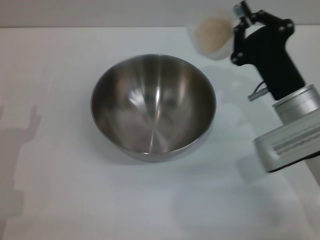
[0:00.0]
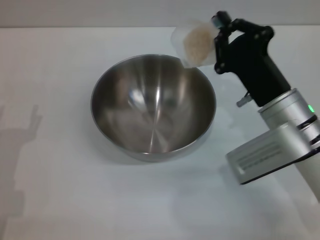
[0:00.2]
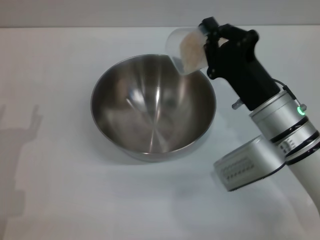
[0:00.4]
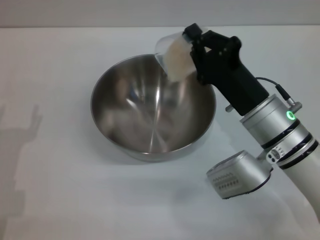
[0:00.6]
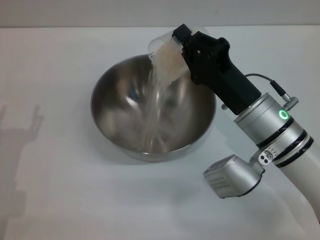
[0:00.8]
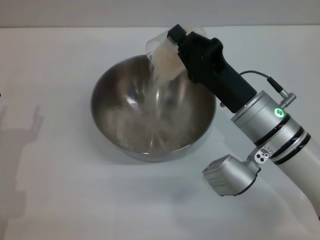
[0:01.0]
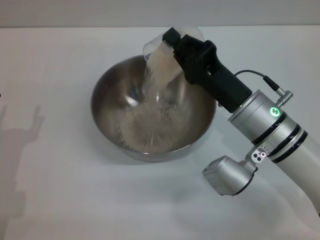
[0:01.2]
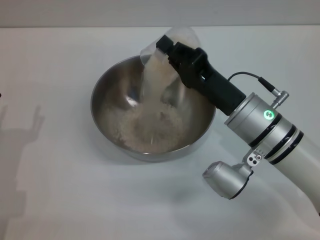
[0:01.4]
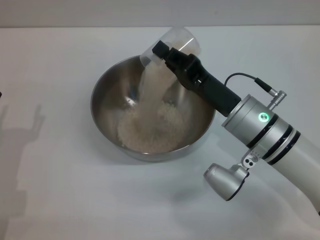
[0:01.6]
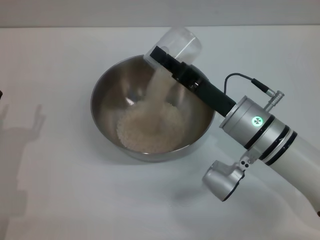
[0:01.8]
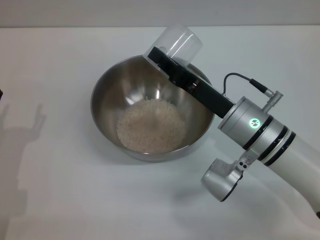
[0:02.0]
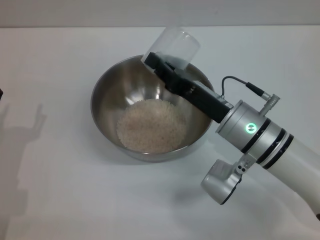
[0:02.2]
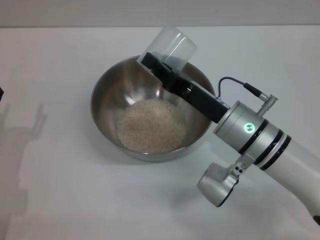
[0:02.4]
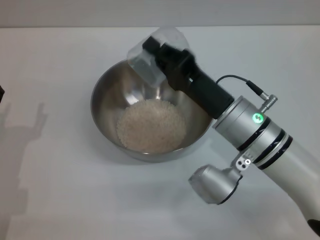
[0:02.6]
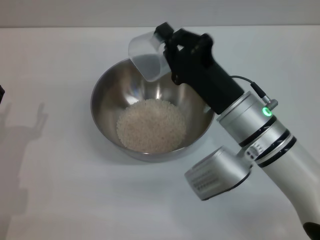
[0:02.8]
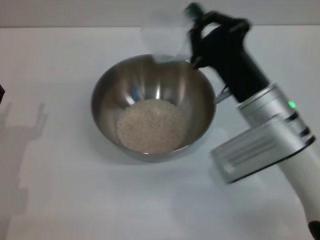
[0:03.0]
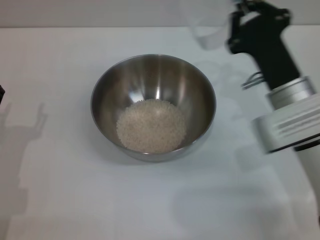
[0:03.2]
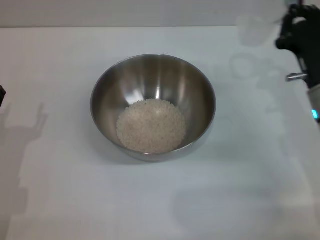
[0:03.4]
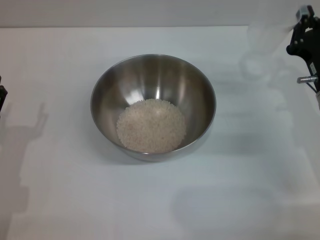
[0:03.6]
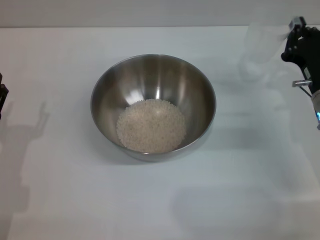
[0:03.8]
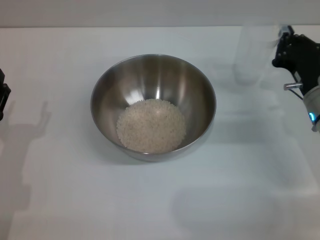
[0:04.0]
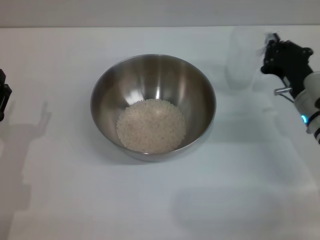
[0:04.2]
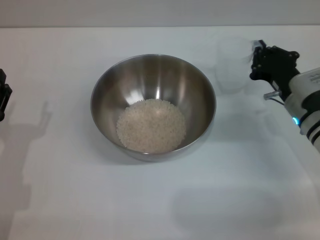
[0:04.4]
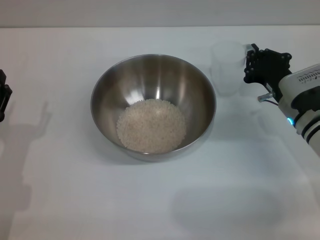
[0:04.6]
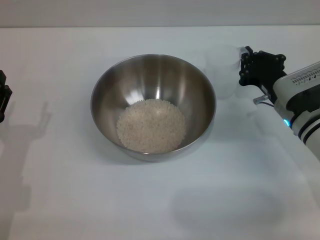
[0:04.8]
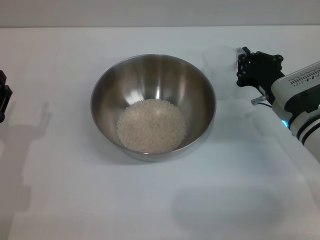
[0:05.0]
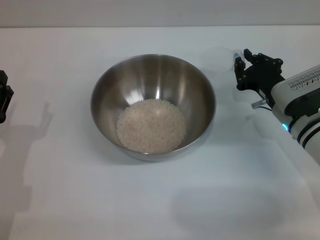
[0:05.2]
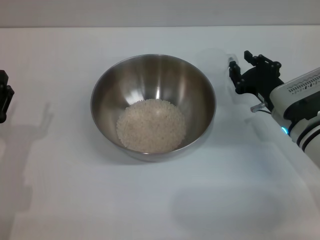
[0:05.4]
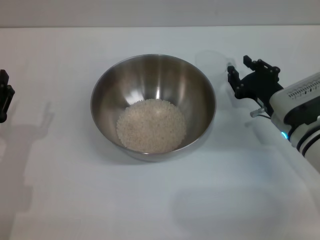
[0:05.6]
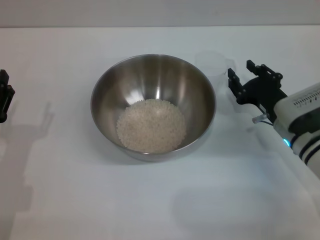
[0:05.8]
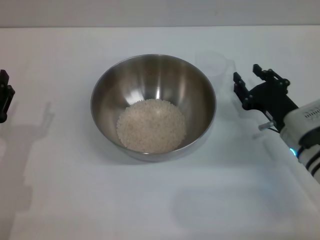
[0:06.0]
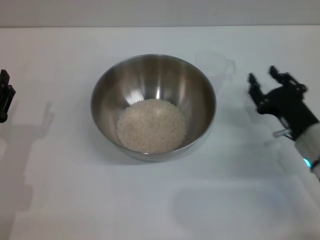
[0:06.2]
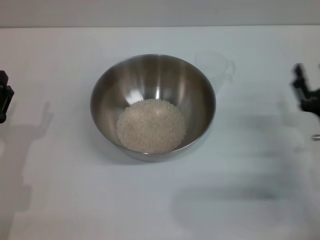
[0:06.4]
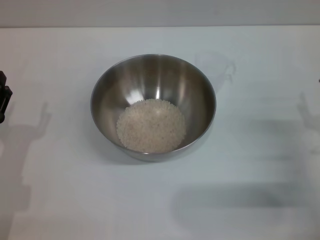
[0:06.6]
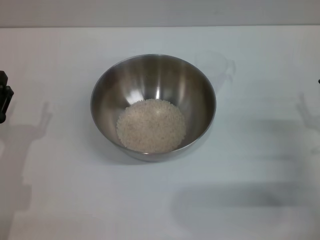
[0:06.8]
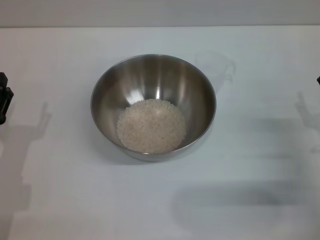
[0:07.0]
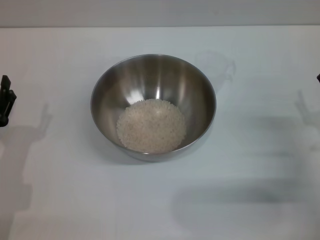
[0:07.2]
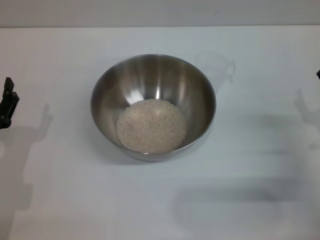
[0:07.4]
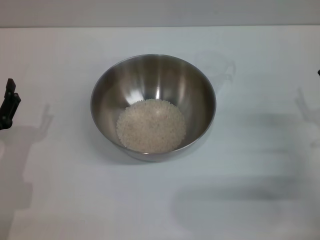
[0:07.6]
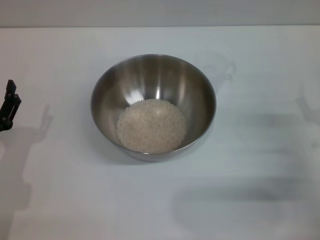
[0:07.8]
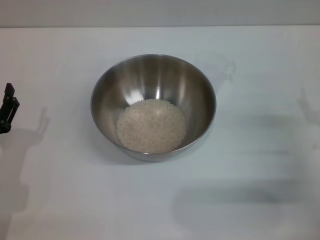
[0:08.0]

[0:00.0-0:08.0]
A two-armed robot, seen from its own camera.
Task of the whole recording: Place the bowl in the middle of the table with one hand and pour the rice from the grain cup into it with the other hand.
Step, 0:00.0 to 0:02.2: Pour the rice from the cup into the bowl with the right gripper.
Step, 0:02.4 to 0:05.6: Place the cup on the table with the right gripper.
0:00.0 to 0:01.6: The right gripper goes roughly 5 cm to the left.
0:03.2 to 0:04.8: The right gripper travels downward by about 5 cm.
0:04.8 to 0:06.4: The right gripper moves backward and to the right, about 10 cm, and opens up.
0:06.4 to 0:08.0: The right gripper opens.
